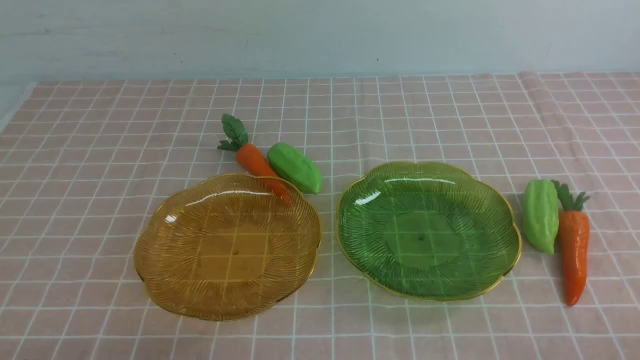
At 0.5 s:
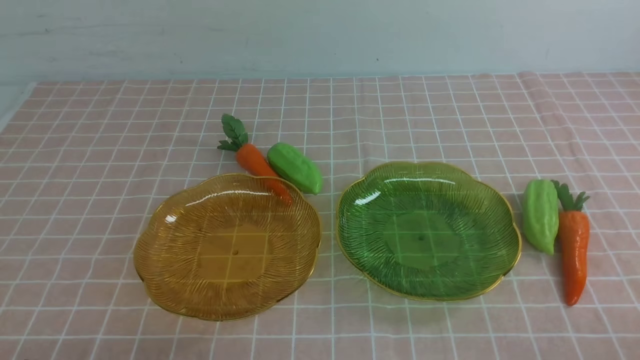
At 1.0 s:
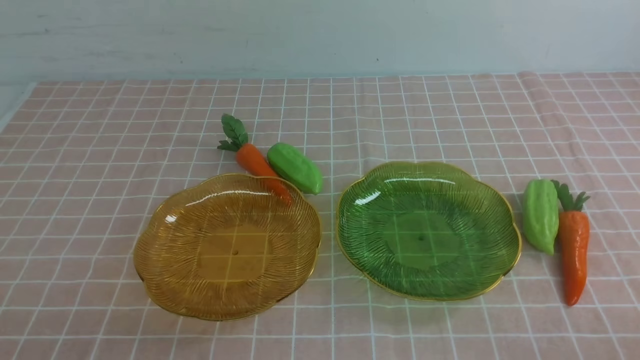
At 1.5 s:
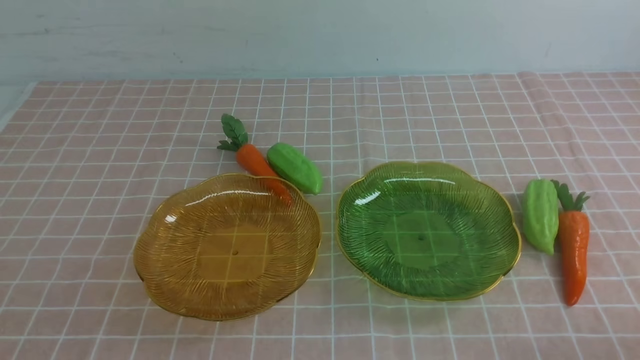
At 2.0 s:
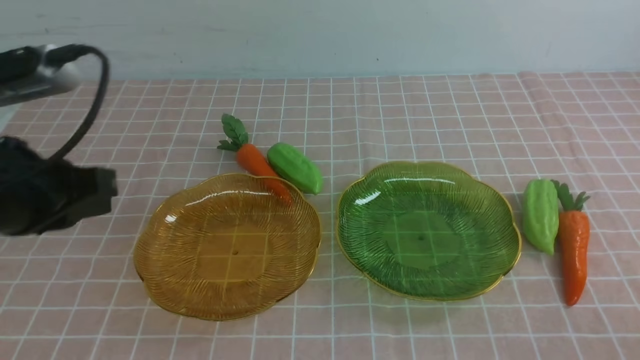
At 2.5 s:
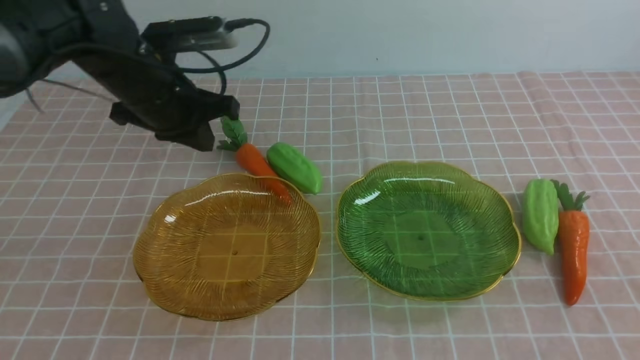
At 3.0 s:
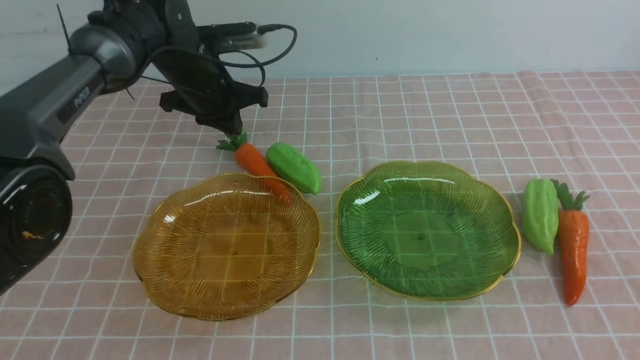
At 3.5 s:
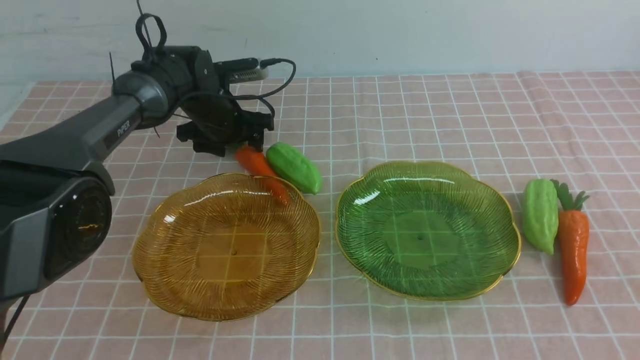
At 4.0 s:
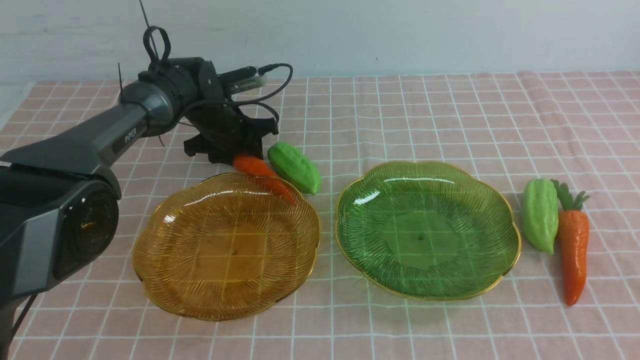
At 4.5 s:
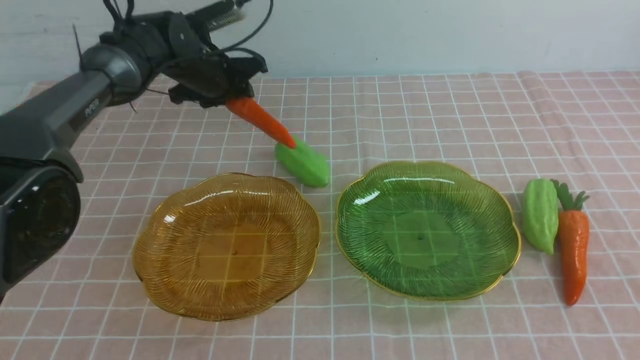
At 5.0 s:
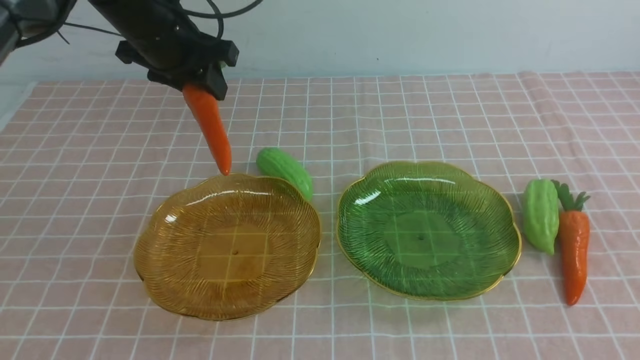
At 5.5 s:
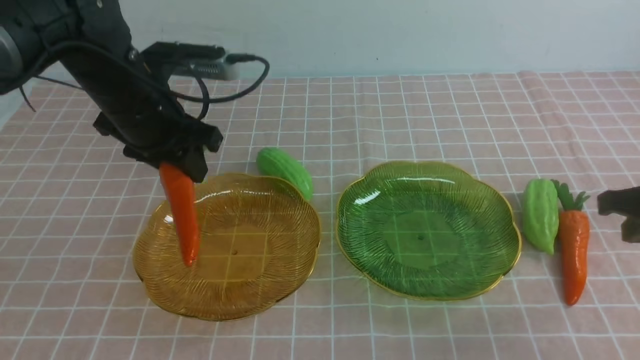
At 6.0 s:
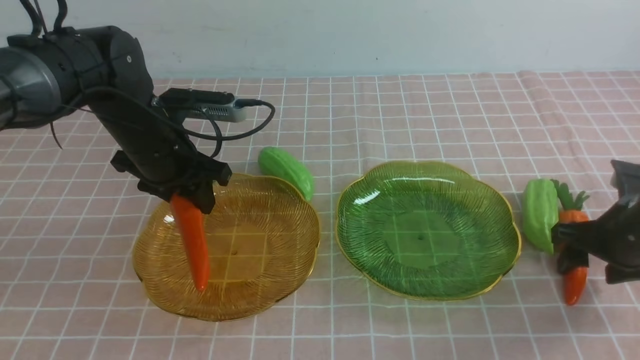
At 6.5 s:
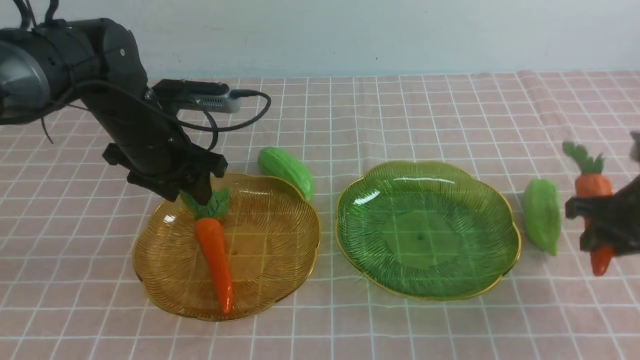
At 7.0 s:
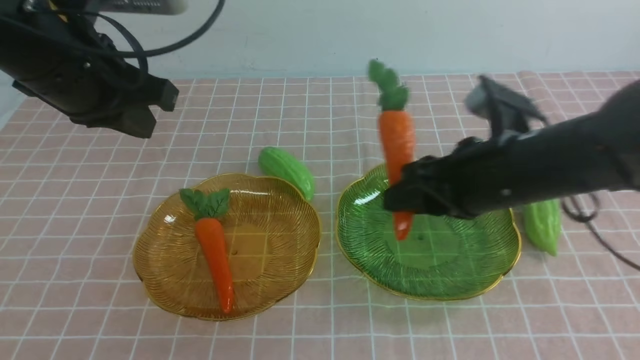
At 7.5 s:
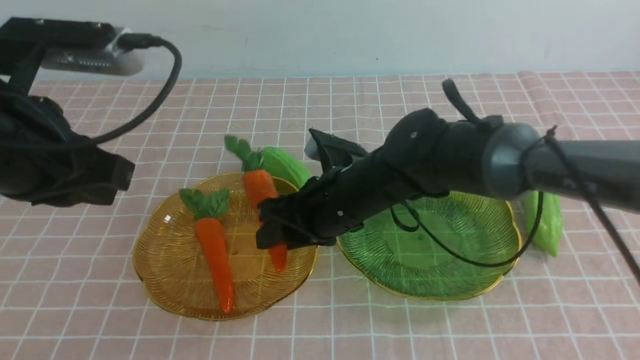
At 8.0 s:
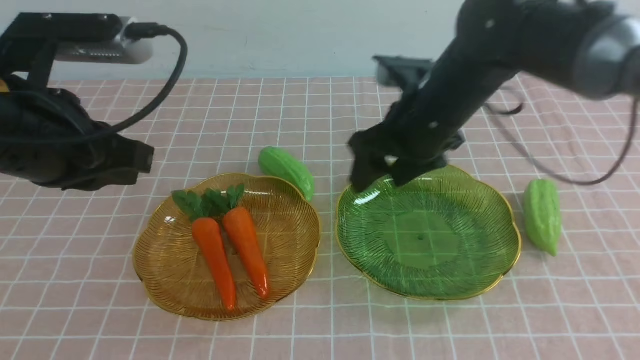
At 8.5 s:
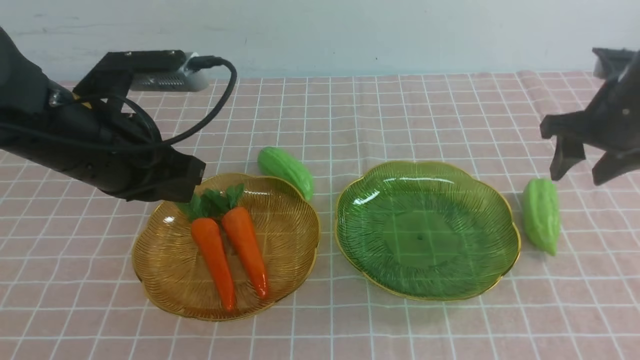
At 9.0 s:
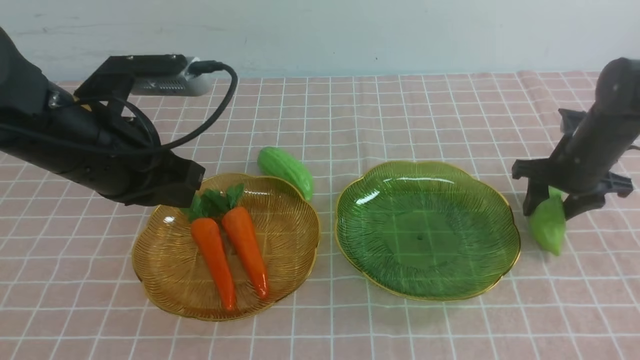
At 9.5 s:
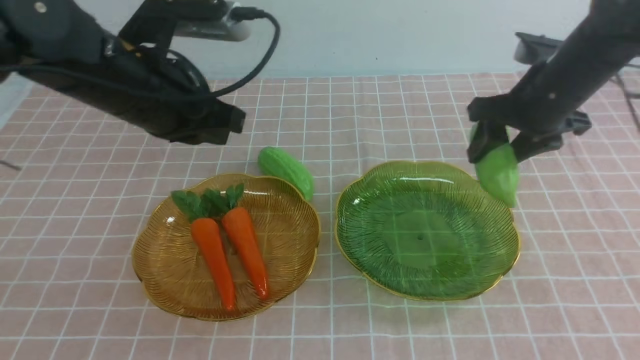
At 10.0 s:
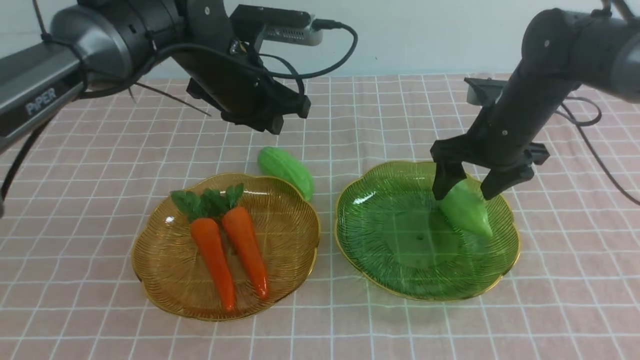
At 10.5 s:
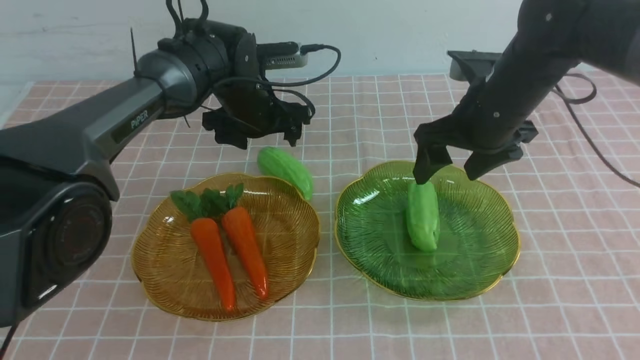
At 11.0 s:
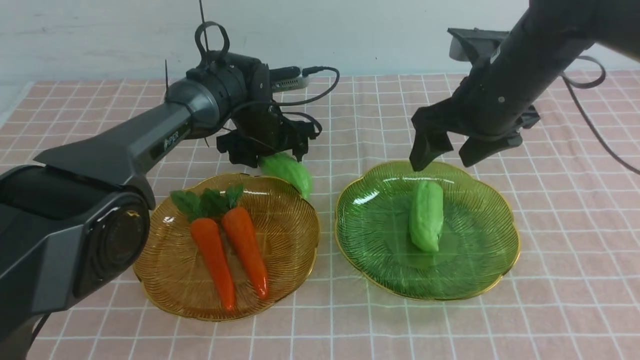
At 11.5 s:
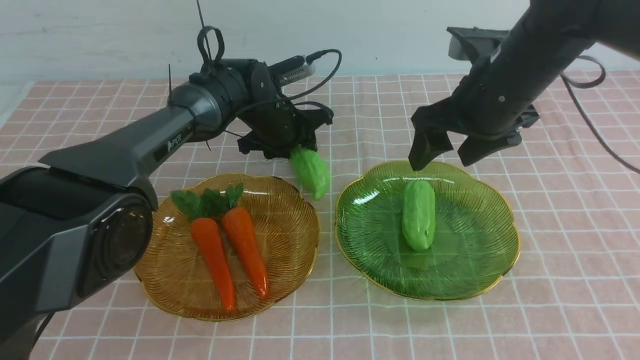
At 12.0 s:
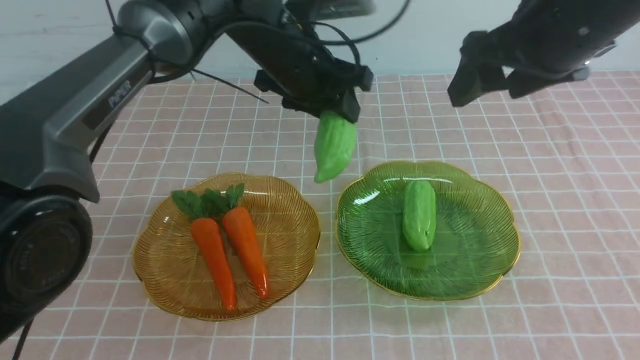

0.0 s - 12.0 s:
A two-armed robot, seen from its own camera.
Step, 0.0 s - 6.0 s: use the left arm to grab a carrot and put it into the left plate.
Step, 6.5 s - 7.5 s: use the right arm to grab a carrot and put it into the left plate.
Step, 8.0 s - 10.0 s: use the right arm to grab a chayote and put it into the right plate.
0.0 s - 2.0 s: The left gripper travels forward and upward by approximately 35 cm.
2.0 s - 4.0 s: The left gripper moves forward and downward, approximately 15 cm, and opens.
4.0 s - 6.0 s: The left gripper is displaced backward by roughly 15 cm, while the right gripper shifts some 25 cm forward and downward, and opens.
6.0 s - 8.0 s: The left gripper heads backward and upward, covering about 15 cm, and closes. The right gripper goes some 10 cm forward and upward, and reaches roughly 30 cm to the left, then returns.
8.0 s - 10.0 s: The right gripper goes about 15 cm to the left; the left gripper moves forward, to the right and downward, roughly 25 cm, and opens.
10.0 s - 12.0 s: The left gripper heads to the right and backward, covering roughly 10 cm. Meanwhile the right gripper is displaced upward and backward by about 20 cm.

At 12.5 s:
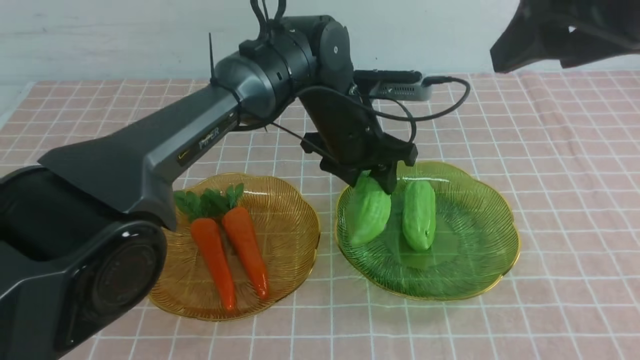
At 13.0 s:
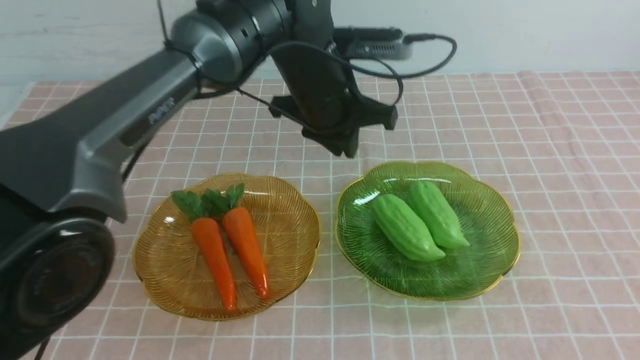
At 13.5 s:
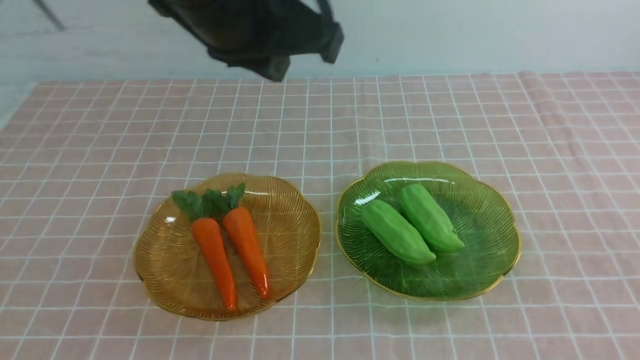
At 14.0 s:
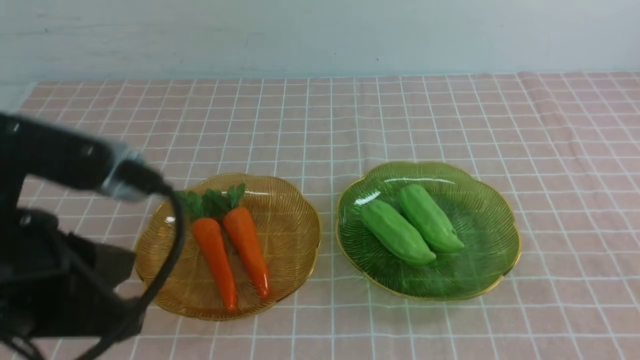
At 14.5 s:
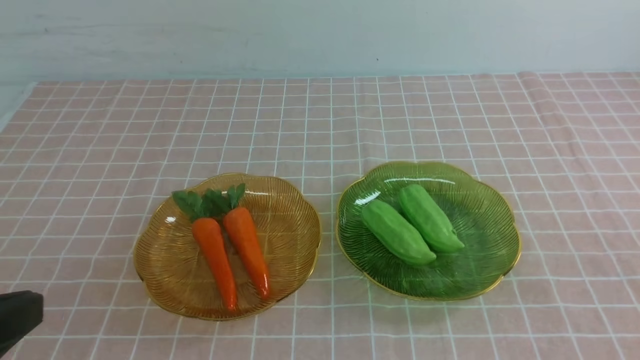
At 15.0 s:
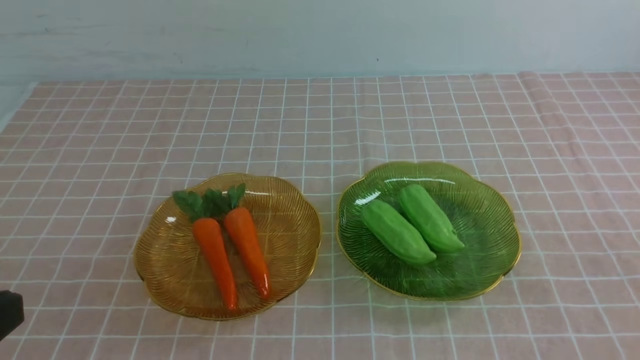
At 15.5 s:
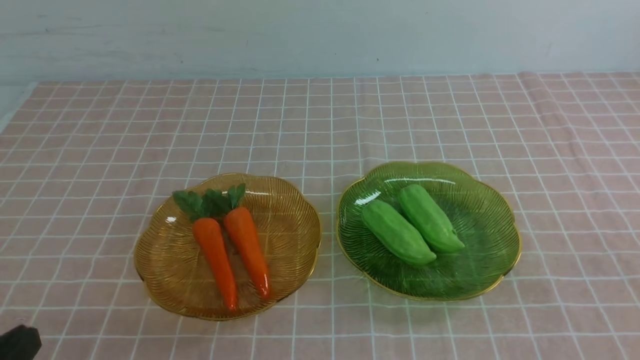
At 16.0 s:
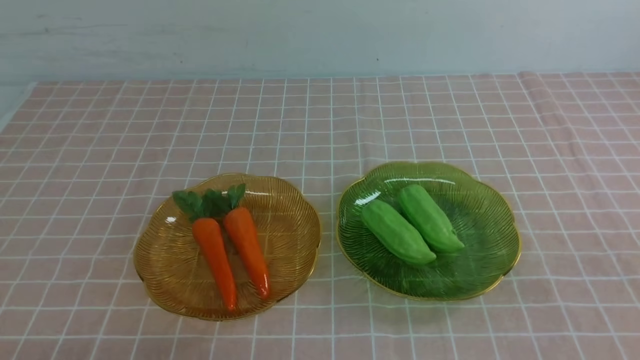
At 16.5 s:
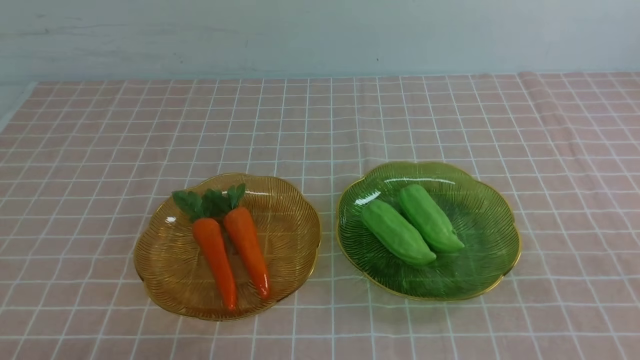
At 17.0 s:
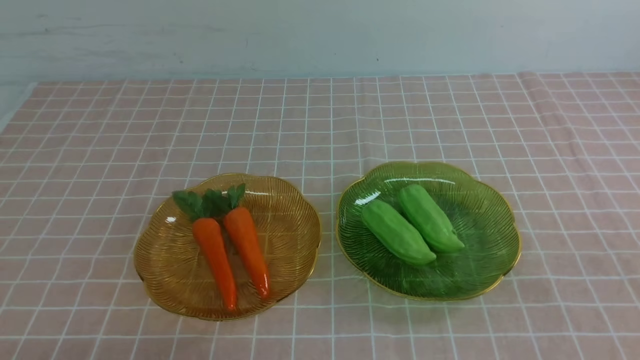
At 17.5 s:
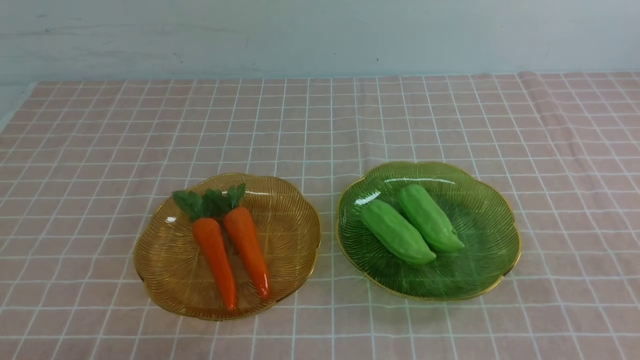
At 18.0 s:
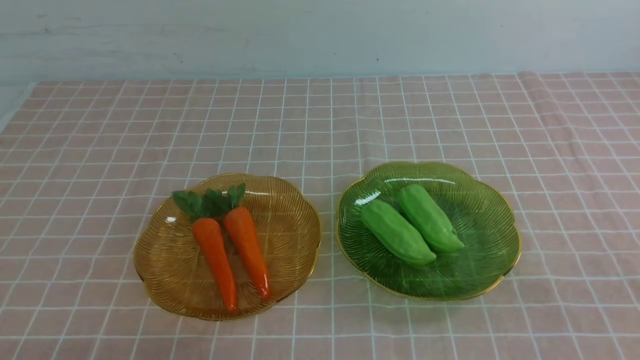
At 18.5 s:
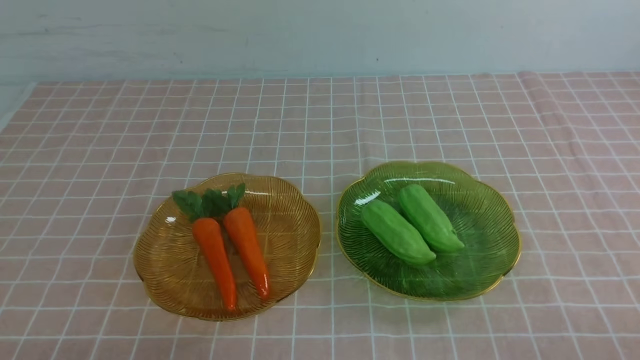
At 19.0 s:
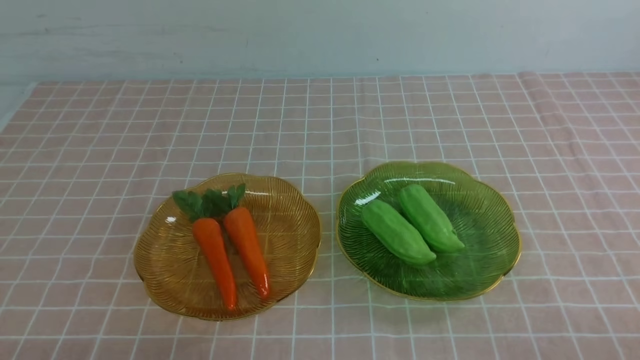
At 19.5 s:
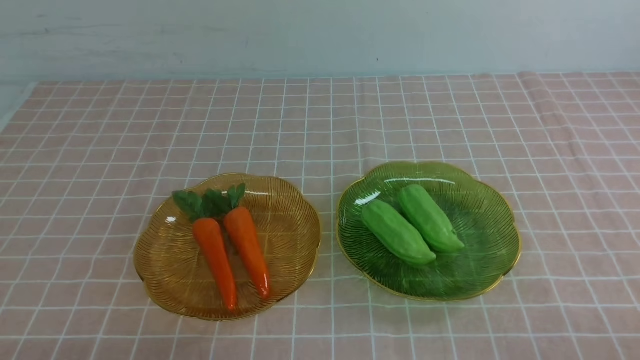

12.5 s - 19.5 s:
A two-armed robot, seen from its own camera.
12.5 s - 14.5 s: The left gripper is displaced backward and to the left by some 40 cm. The right gripper is displaced downward and backward by some 10 cm, and closes up.
14.5 s - 16.0 s: The left gripper shifts approximately 15 cm downward.
